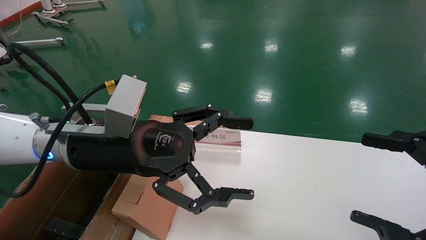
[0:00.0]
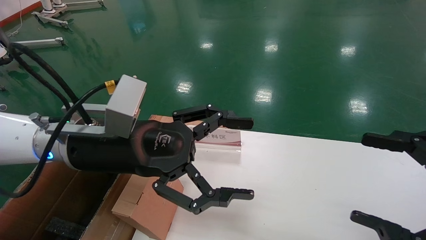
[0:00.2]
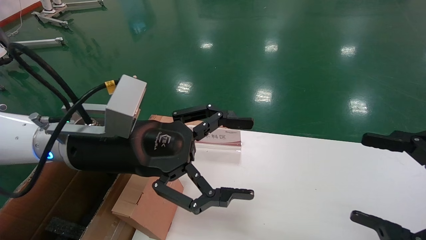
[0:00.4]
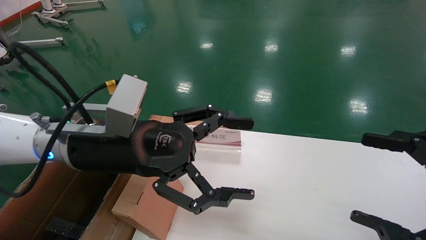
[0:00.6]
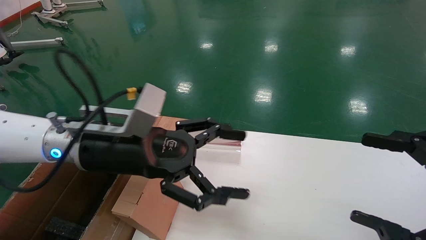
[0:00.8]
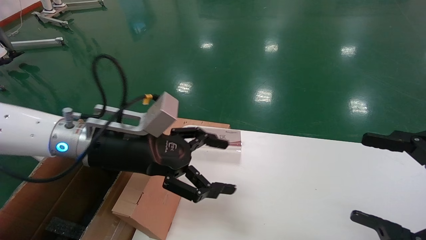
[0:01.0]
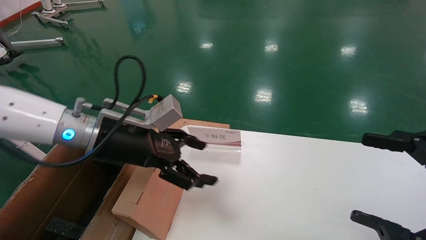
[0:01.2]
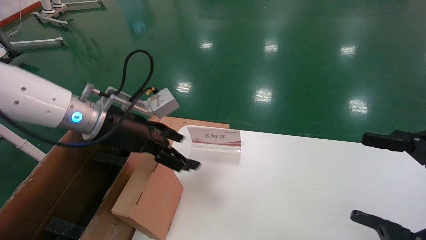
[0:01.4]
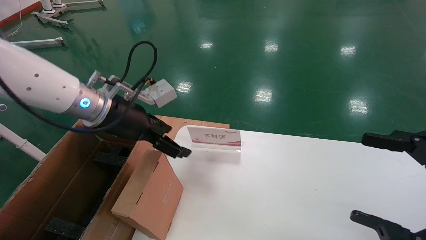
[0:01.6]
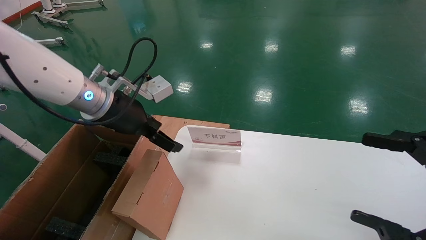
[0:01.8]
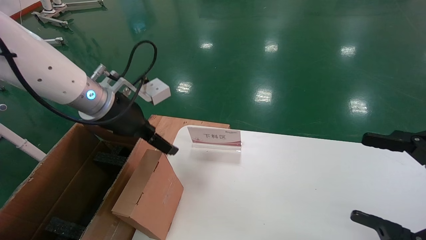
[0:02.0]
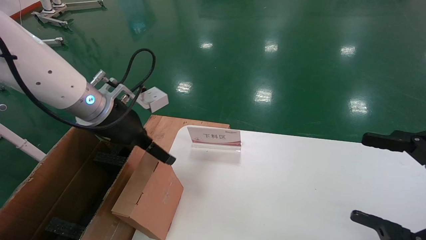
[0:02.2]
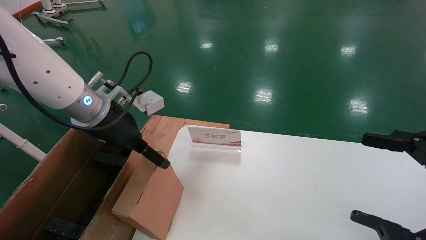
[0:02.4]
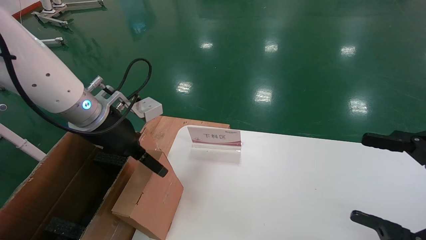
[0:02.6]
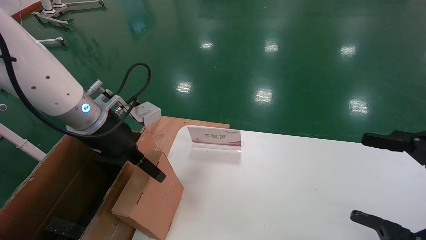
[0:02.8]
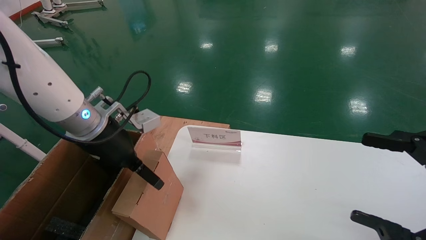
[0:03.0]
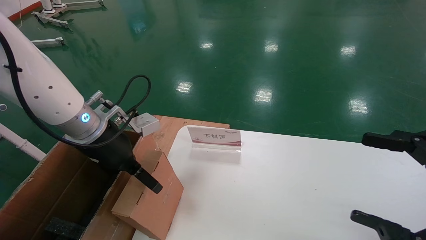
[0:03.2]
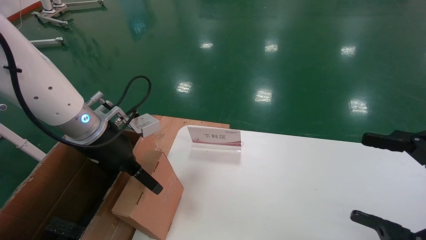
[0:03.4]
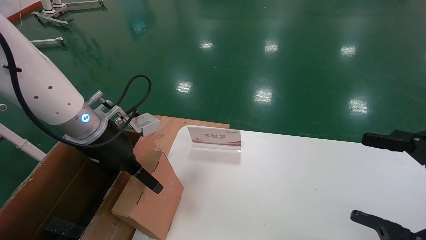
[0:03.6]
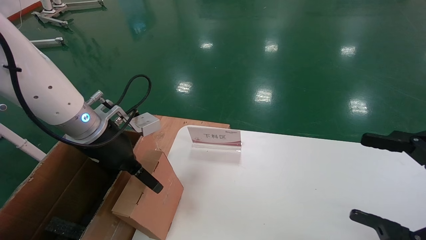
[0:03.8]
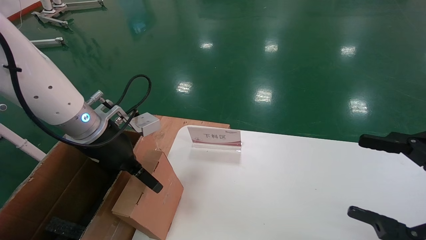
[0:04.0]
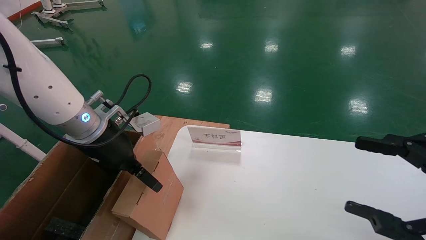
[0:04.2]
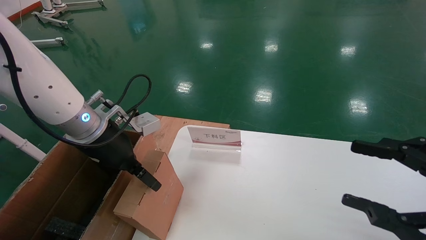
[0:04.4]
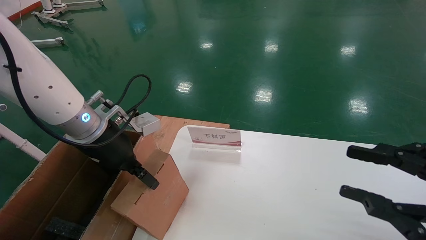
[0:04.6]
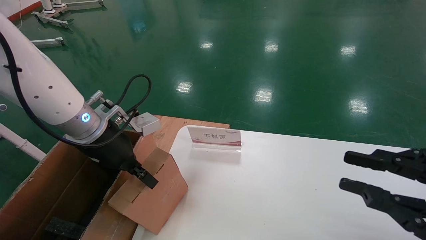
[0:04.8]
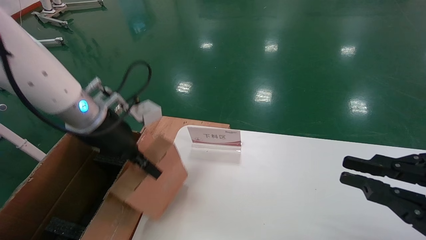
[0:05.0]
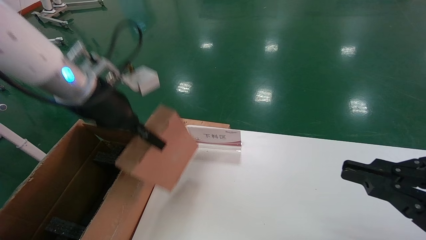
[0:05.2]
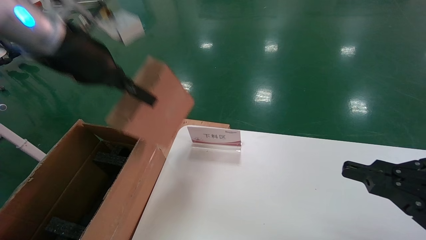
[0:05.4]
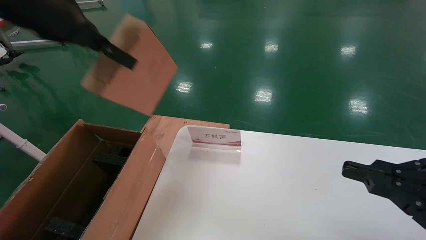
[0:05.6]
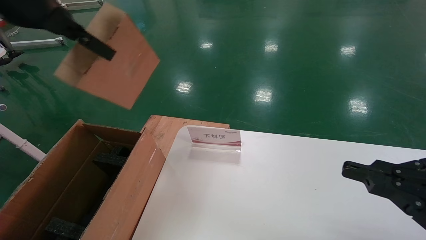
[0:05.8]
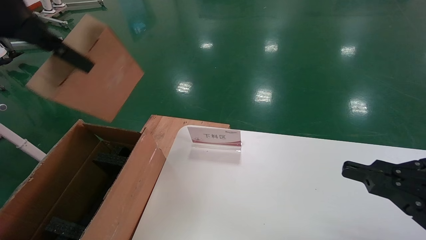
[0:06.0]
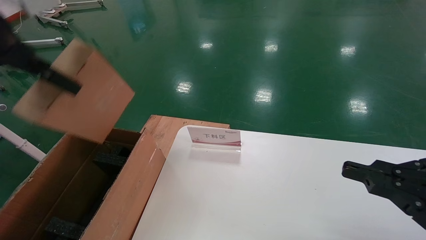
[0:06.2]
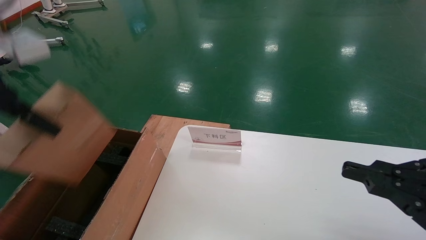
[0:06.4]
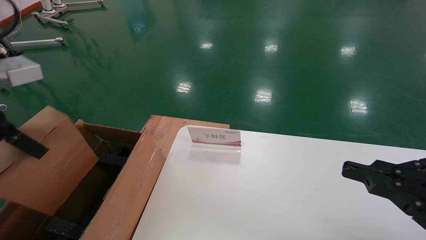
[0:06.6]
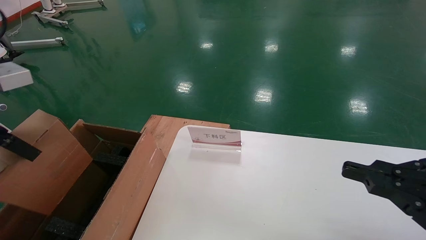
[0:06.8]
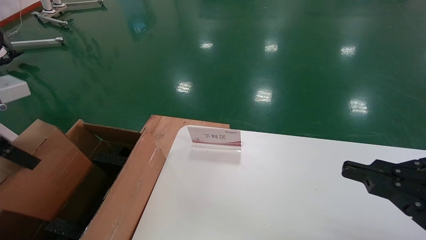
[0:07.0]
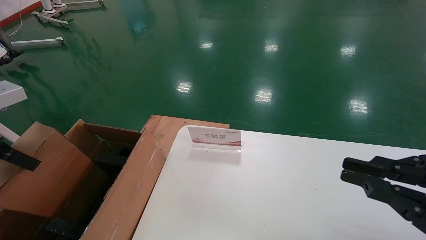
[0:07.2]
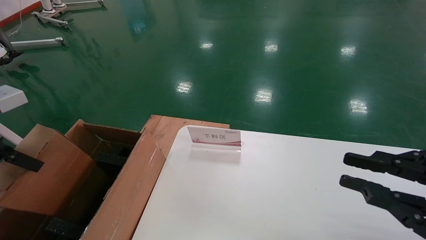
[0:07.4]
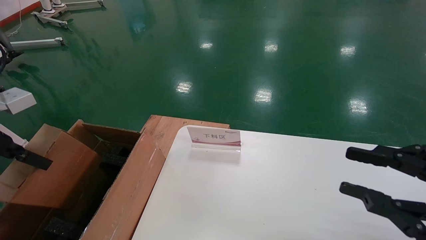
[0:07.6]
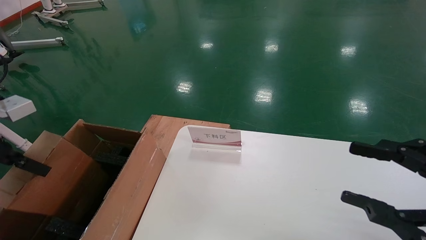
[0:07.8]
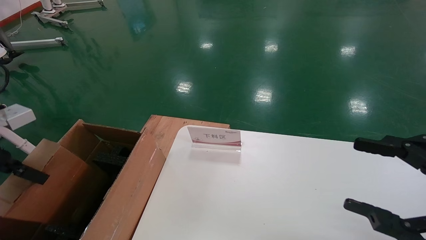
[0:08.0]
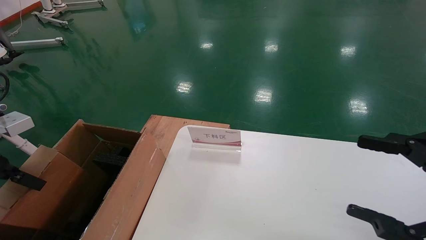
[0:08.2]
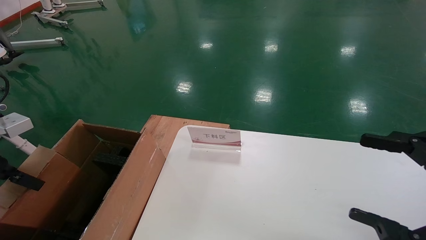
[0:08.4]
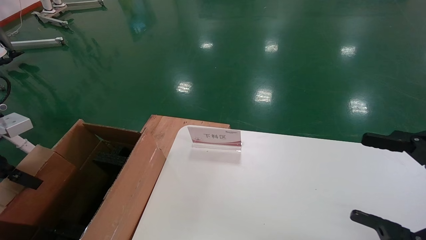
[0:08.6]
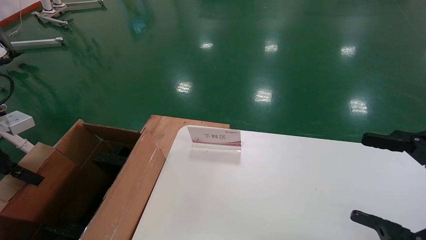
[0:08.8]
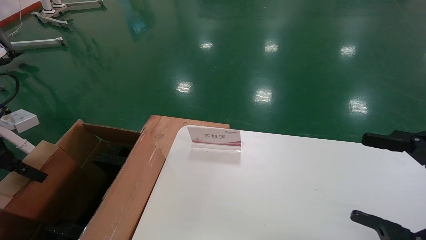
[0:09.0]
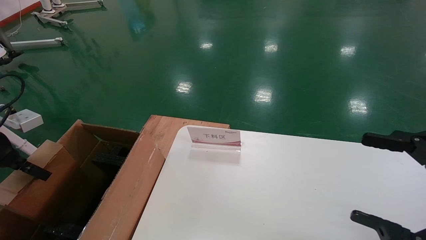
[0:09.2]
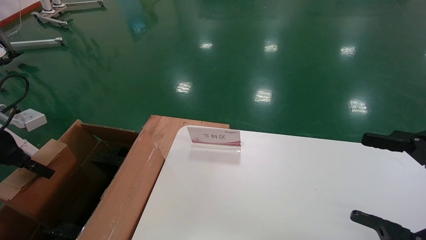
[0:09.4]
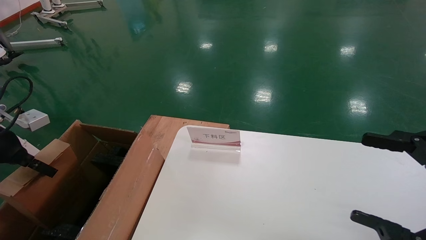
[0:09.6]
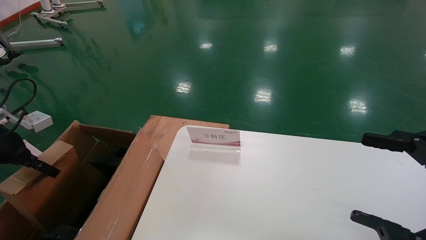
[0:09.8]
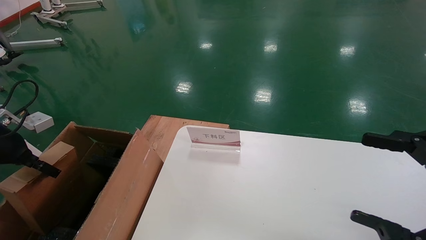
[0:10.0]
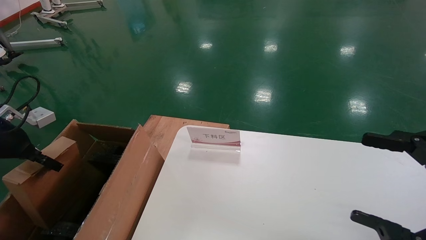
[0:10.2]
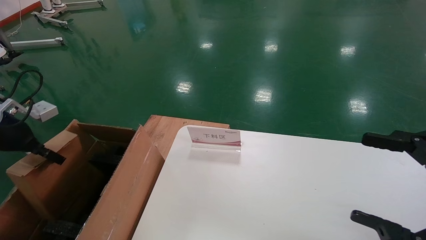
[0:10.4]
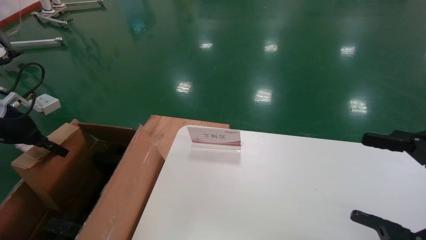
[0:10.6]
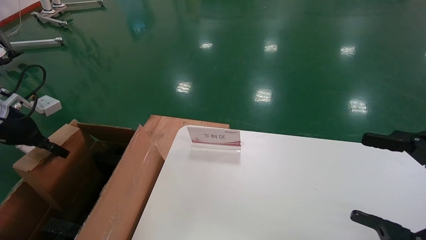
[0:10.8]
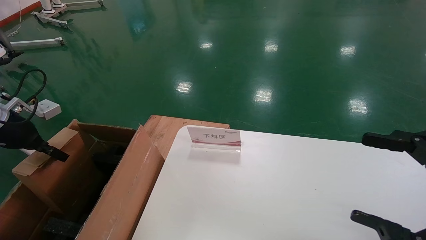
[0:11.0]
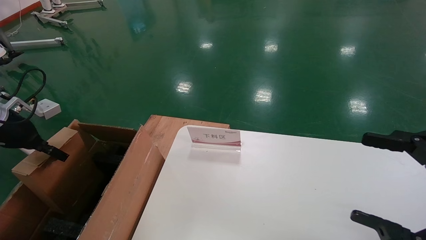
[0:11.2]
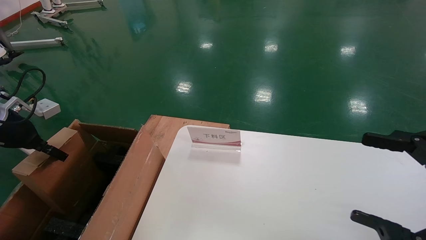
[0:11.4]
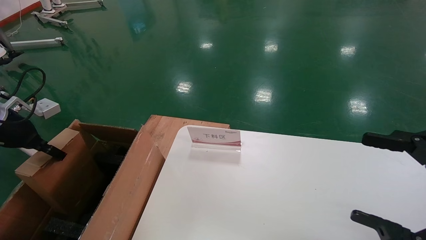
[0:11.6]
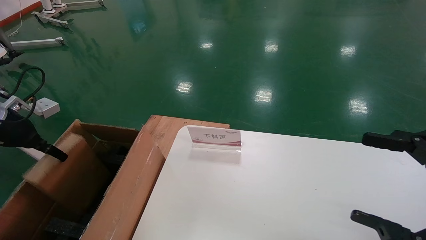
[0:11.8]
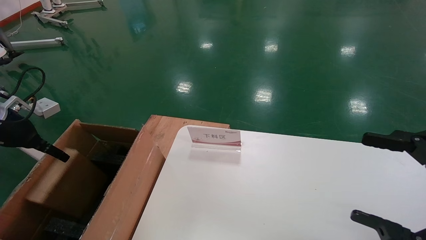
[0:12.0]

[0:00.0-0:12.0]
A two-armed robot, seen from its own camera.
Task of the whole recording: pick up the small cardboard box and load it into the large cardboard box.
Step, 0:00.8 to 0:05.0: Pick up the mouse and power cord box.
0:00.0 to 0:01.6: The left gripper travels forward by about 10 cm.
0:03.0 to 0:04.4: Both grippers stay put.
0:04.4 to 0:06.0: The left gripper heads upward and backward, covering approximately 25 cm, and closes its fingers, while the right gripper closes up.
0:06.0 to 0:07.6: The left gripper is displaced downward and to the left by roughly 20 cm.
0:07.6 to 0:09.0: The left gripper shifts some 5 cm to the left and downward. Meanwhile the right gripper opens up.
0:09.0 to 0:10.4: The left gripper travels forward by some 5 cm.
0:10.4 to 0:12.0: The left gripper opens its fingers.

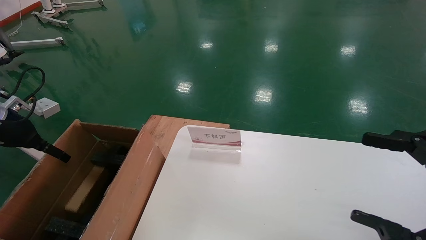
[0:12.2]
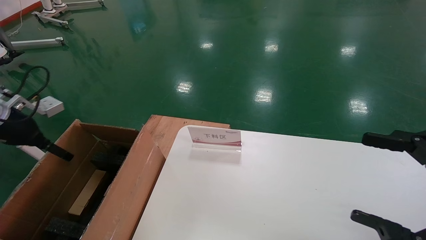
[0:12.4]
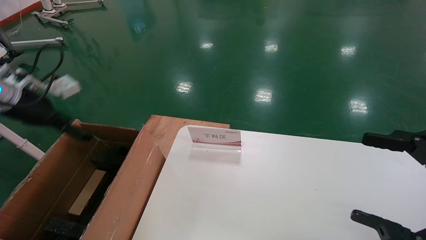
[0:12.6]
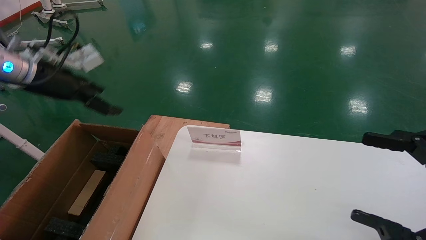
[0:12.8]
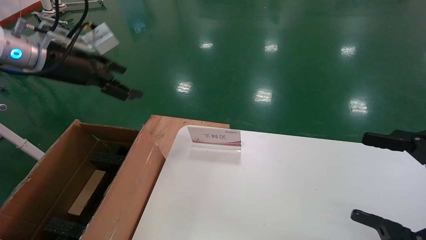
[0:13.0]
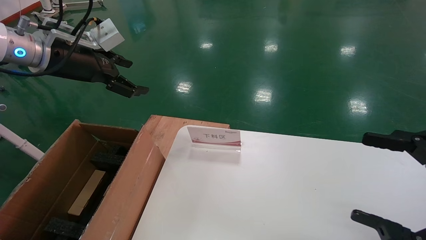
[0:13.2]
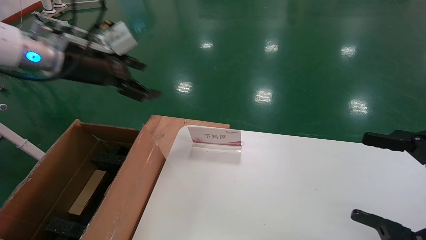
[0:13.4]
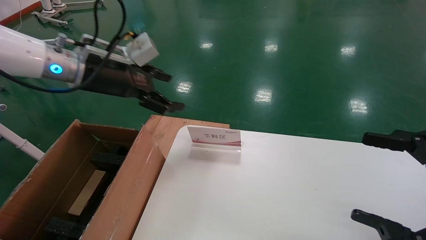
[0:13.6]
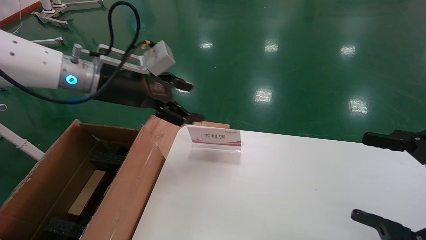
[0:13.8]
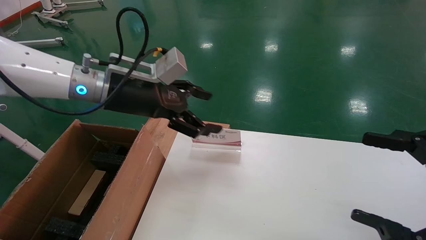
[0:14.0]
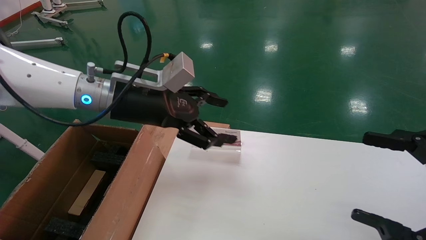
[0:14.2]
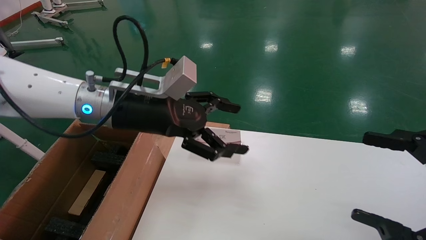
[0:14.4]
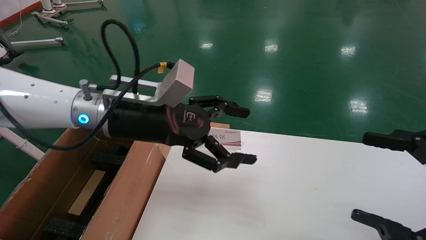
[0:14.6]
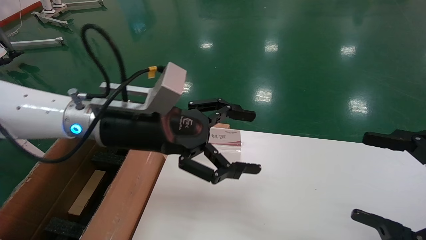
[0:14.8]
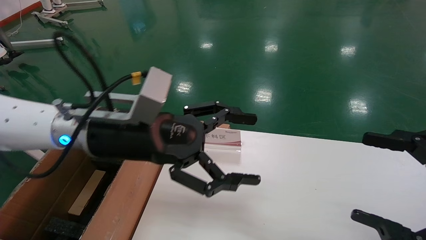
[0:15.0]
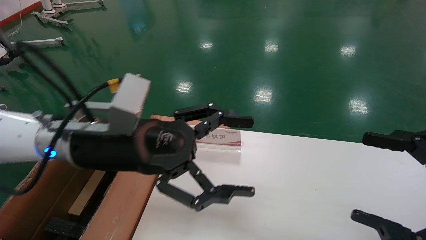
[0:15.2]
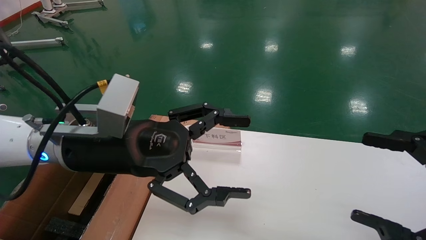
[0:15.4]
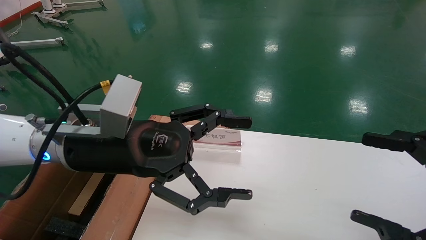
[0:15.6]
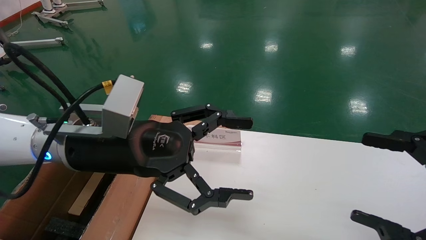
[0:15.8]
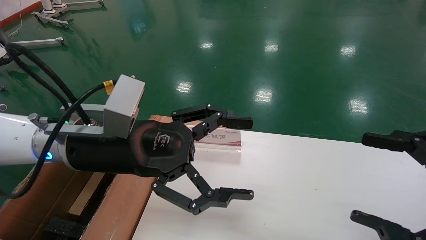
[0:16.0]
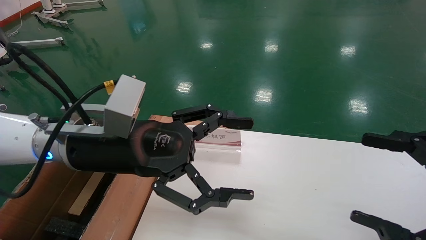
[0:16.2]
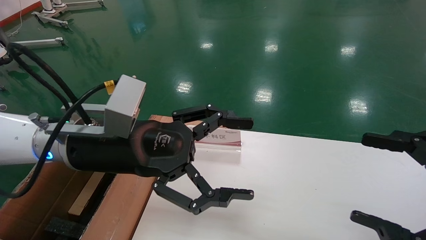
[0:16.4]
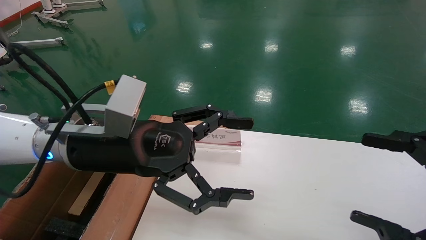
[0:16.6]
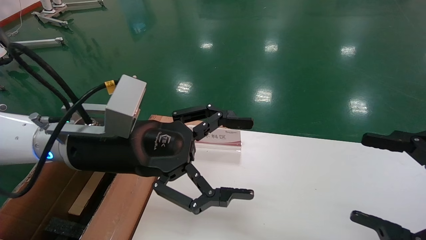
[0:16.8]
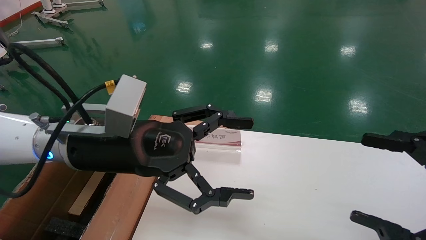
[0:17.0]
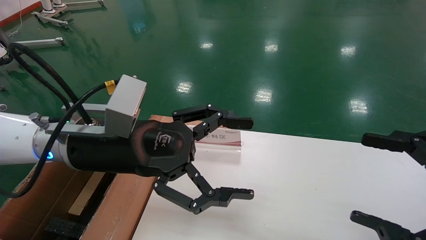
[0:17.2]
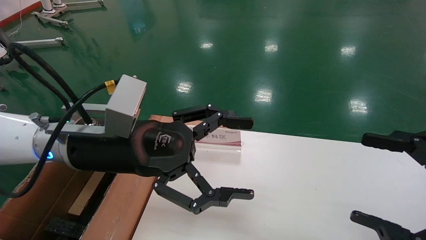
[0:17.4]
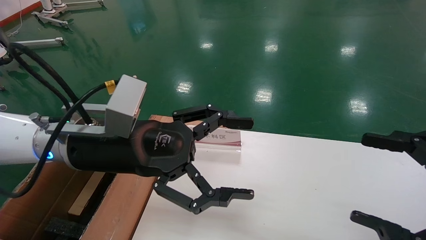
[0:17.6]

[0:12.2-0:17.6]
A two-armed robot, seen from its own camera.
Task of the whole recording: pick up the small cardboard box and load it into the large cardboard box.
0:12.2 to 0:13.6: The left gripper shifts roughly 25 cm to the right and upward.
0:13.6 to 0:15.0: The left gripper shifts roughly 15 cm to the right, backward and downward.
0:15.0 to 0:16.2: The grippers move only a little.
0:16.2 to 0:17.6: The two grippers keep their place.
